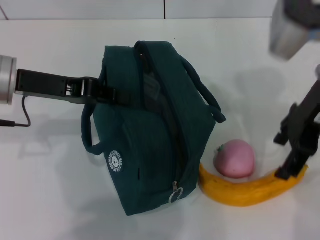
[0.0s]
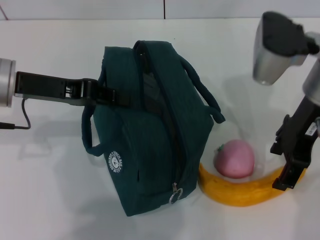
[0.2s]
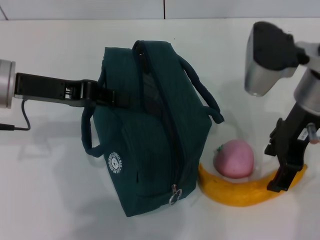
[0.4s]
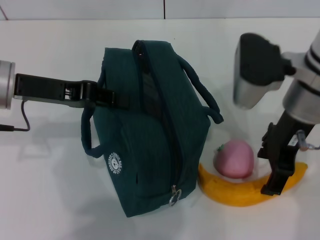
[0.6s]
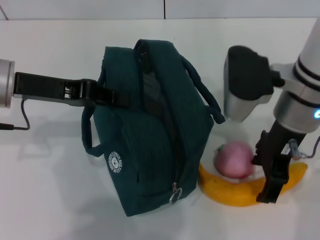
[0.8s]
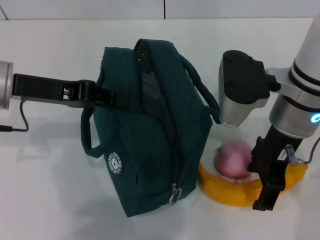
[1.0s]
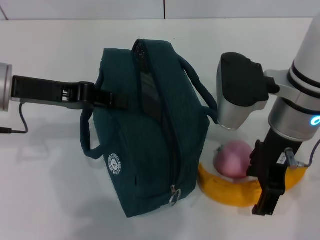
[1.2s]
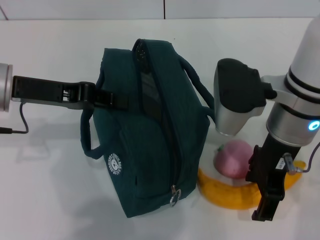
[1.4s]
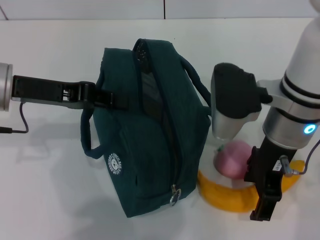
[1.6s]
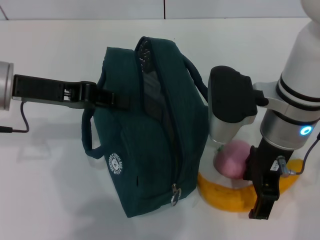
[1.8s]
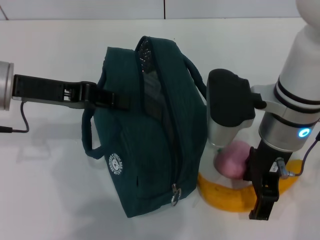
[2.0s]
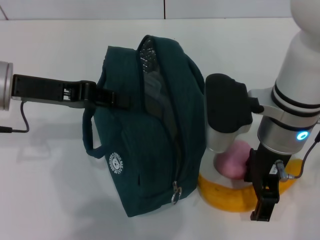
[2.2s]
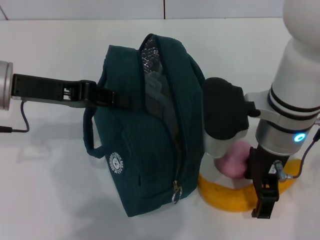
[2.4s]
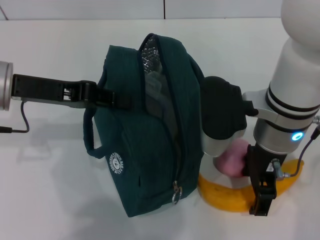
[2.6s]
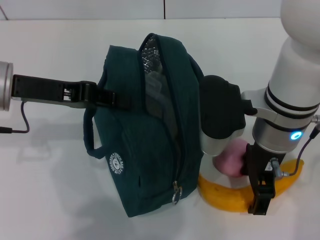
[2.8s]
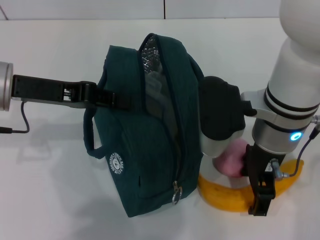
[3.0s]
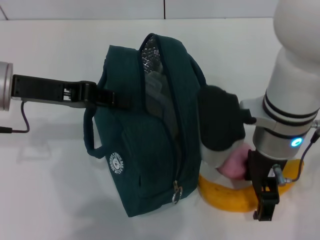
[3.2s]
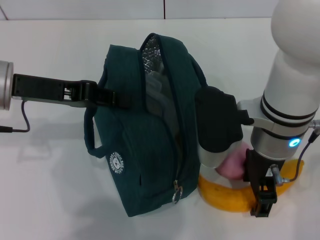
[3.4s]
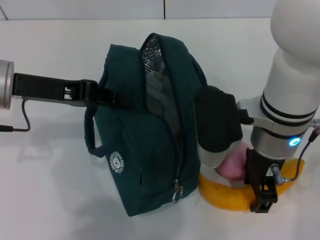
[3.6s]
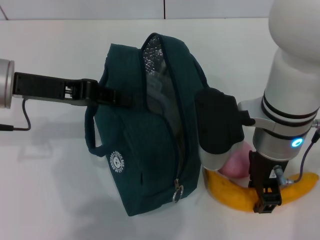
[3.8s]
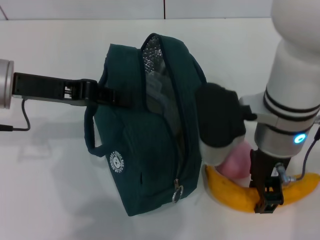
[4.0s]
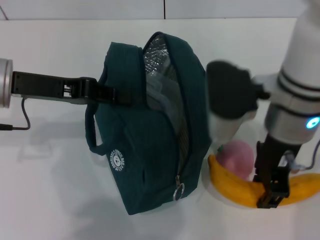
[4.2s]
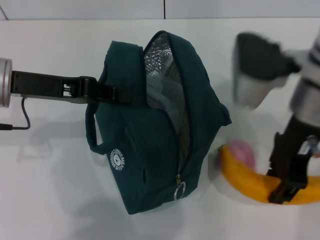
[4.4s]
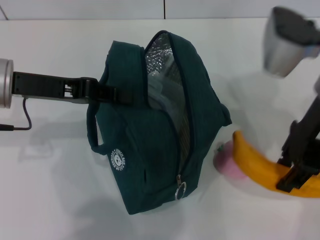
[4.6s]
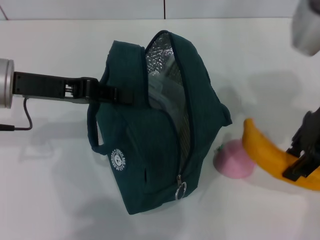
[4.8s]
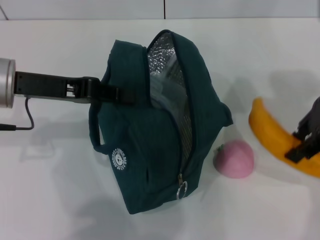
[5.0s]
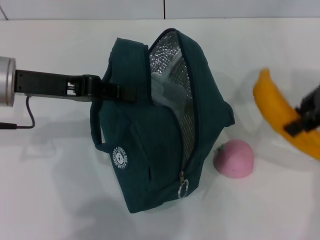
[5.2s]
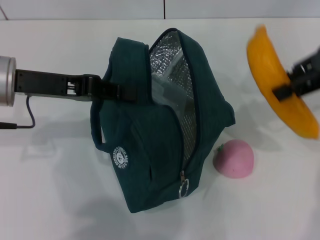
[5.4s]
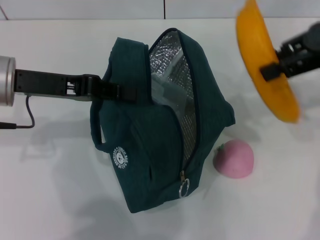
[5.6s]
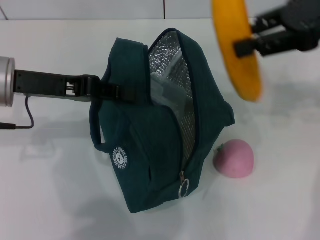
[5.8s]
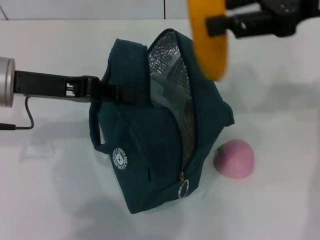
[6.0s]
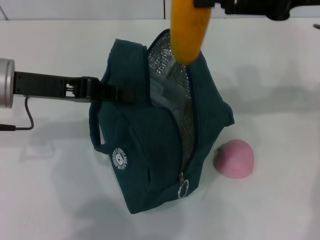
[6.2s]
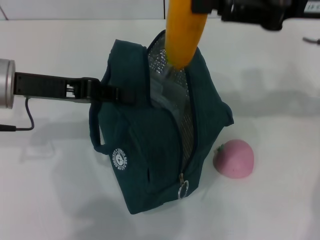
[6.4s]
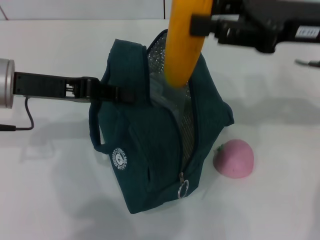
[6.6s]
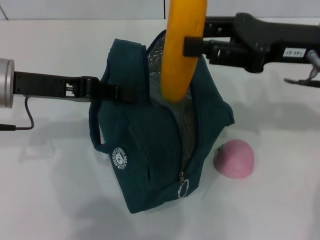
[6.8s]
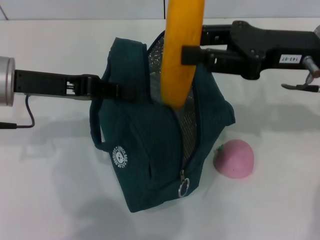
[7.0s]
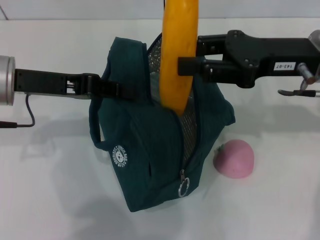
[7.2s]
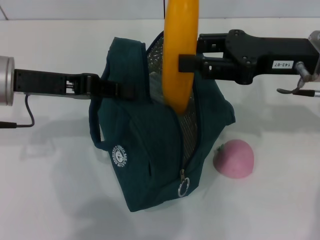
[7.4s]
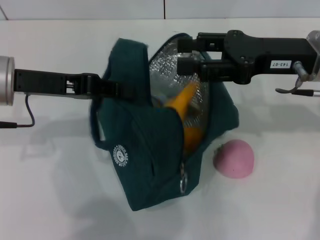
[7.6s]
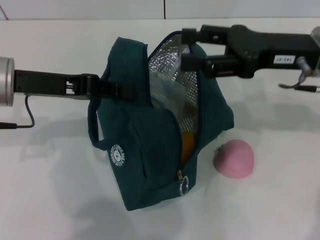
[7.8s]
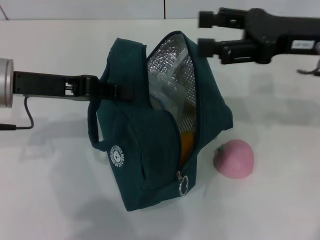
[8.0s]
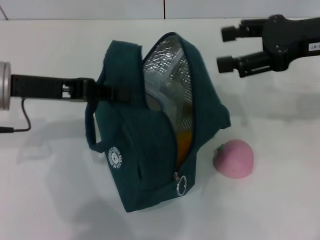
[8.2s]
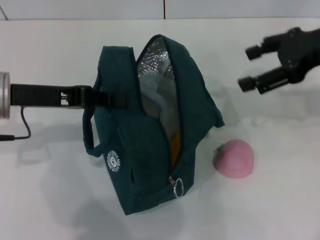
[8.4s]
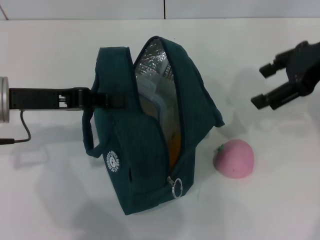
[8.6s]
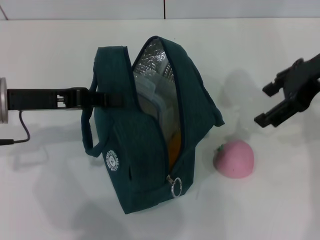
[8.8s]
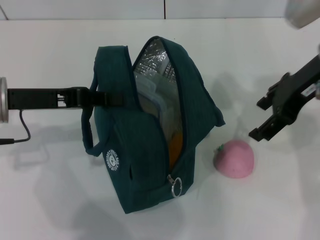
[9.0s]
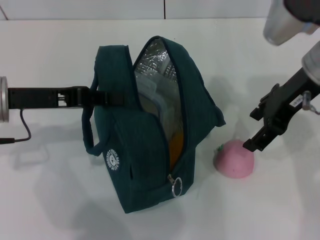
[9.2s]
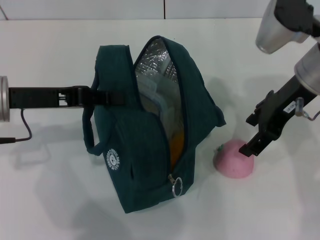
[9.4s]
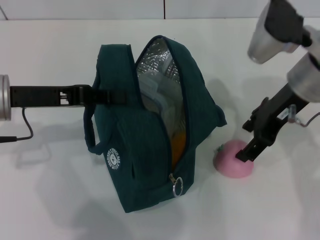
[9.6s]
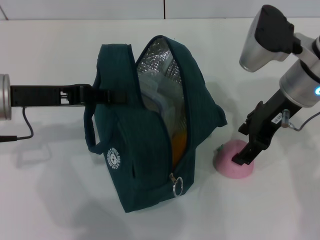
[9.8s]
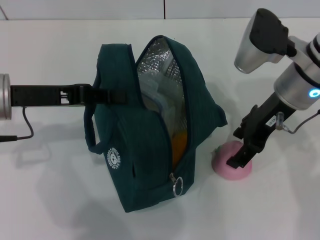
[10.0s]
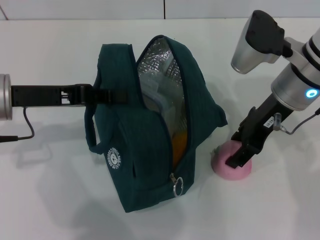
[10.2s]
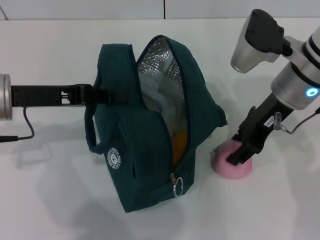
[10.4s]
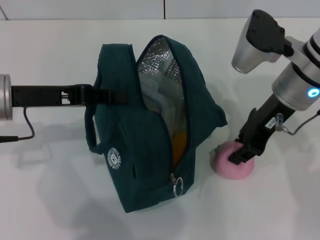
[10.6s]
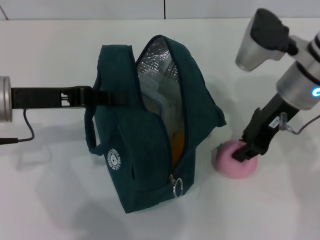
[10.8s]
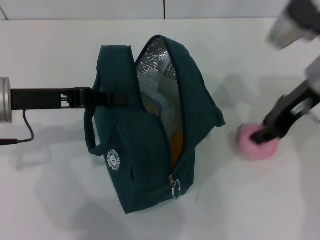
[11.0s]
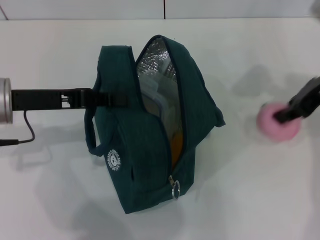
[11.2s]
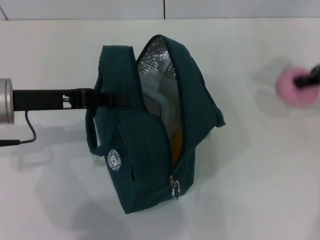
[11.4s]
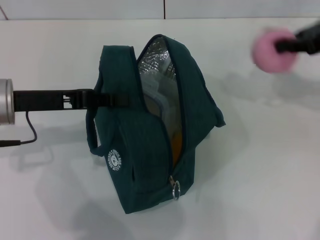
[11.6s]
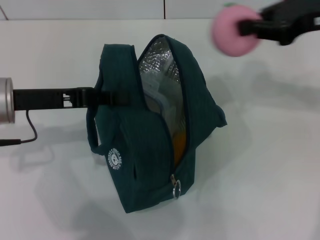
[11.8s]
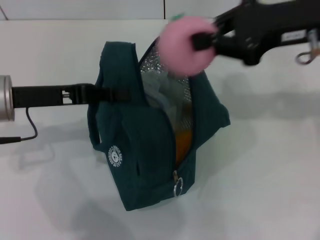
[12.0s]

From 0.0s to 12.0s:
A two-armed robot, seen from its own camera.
Step, from 0.0s to 3.6s: Take the banana with your right hand.
Step, from 3.8s to 7.6s: Put the banana into the lunch bag with your right hand.
Step, from 8.0s to 10.6s: Grab the peach with your right hand.
From 0.0s to 1.6s: The right gripper moves to the left, approximately 5 cm.
From 1.6s to 3.0s: There are only small adjustments of the grippers.
From 3.0s to 4.4s: The right gripper shifts about 5 cm upward, and closes up.
From 4.4s to 6.0s: The right gripper heads to the right and upward, covering roughly 10 cm.
From 6.0s to 7.6s: The right gripper is displaced downward by approximately 10 cm.
From 7.6s to 9.0s: The right gripper opens.
From 9.0s to 10.4s: The right gripper moves downward, roughly 5 cm.
From 10.4s to 12.0s: The right gripper shifts roughly 10 cm upward, moves some 15 cm to the right and comes back, and closes.

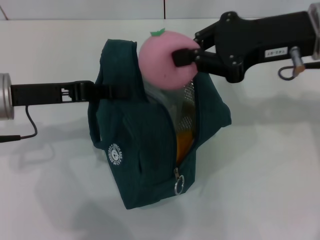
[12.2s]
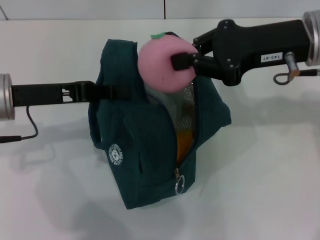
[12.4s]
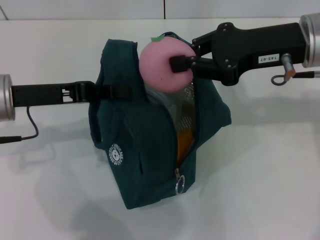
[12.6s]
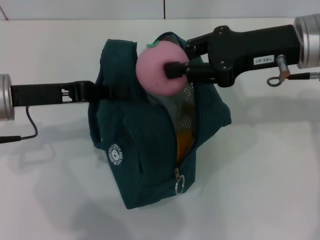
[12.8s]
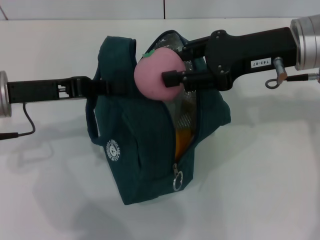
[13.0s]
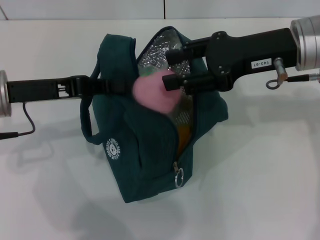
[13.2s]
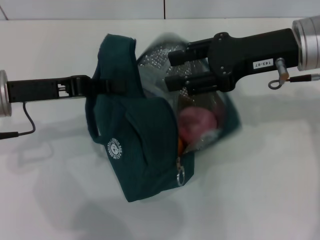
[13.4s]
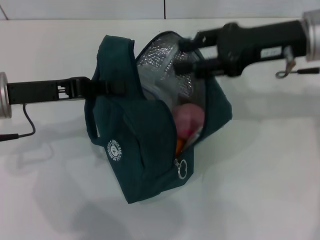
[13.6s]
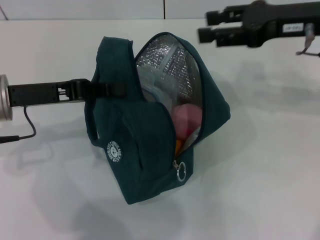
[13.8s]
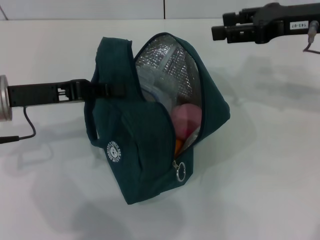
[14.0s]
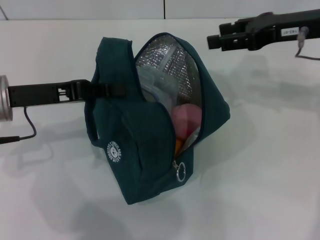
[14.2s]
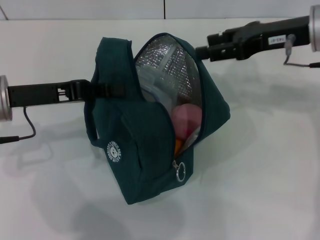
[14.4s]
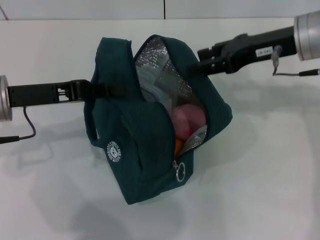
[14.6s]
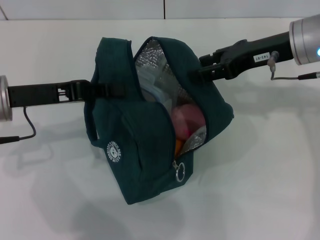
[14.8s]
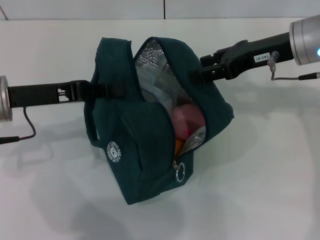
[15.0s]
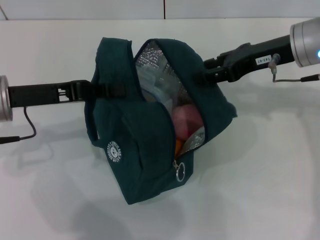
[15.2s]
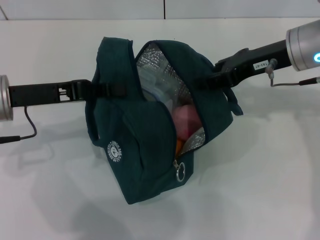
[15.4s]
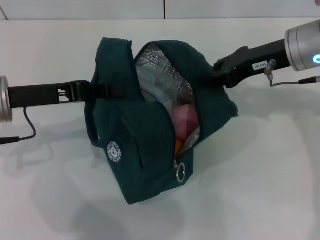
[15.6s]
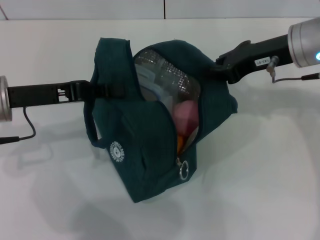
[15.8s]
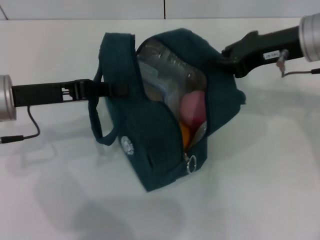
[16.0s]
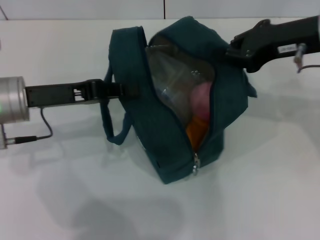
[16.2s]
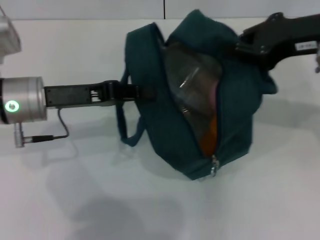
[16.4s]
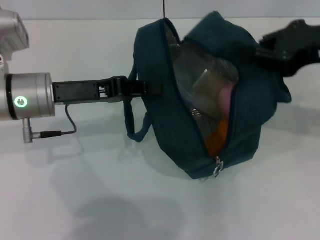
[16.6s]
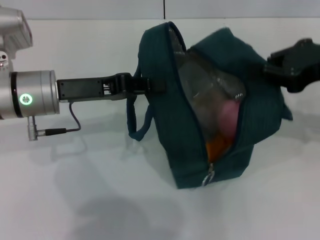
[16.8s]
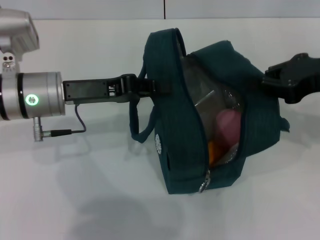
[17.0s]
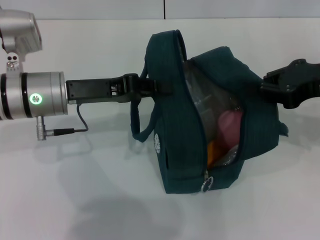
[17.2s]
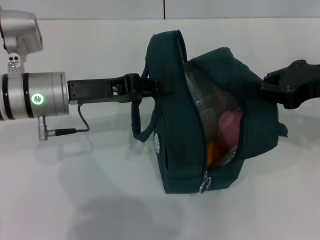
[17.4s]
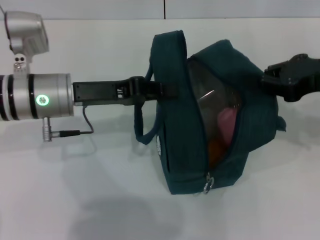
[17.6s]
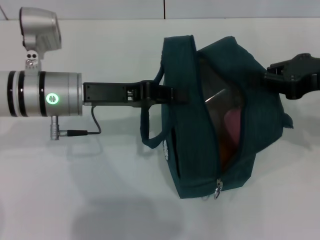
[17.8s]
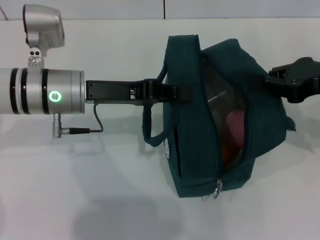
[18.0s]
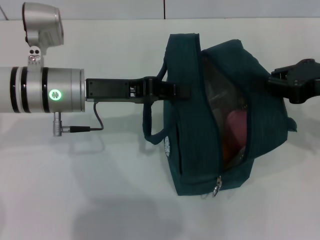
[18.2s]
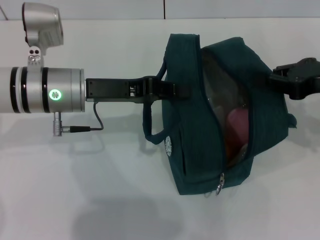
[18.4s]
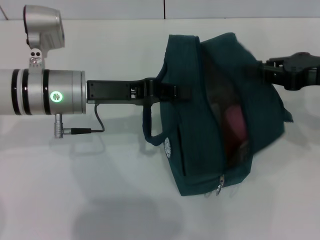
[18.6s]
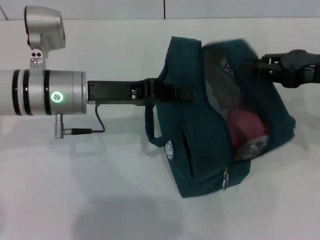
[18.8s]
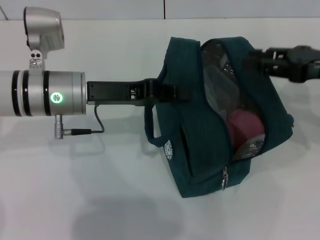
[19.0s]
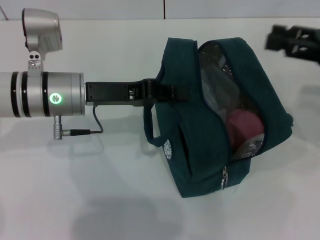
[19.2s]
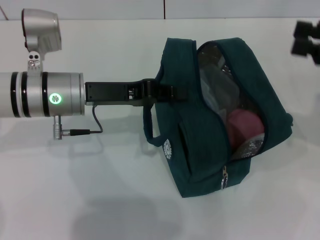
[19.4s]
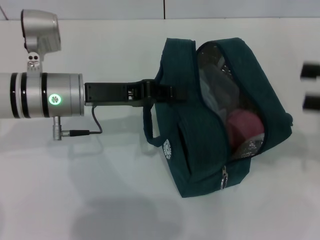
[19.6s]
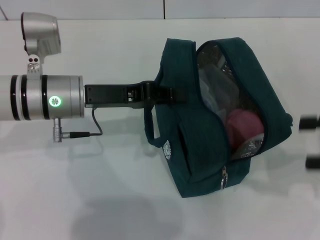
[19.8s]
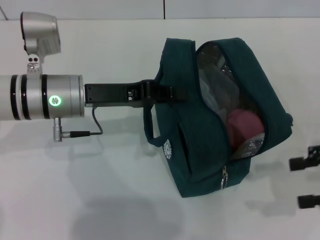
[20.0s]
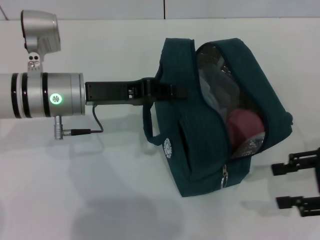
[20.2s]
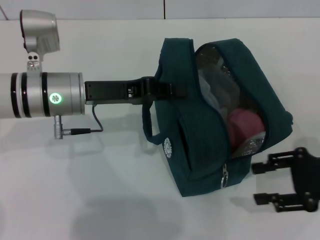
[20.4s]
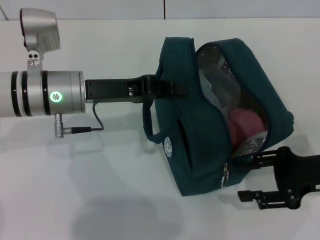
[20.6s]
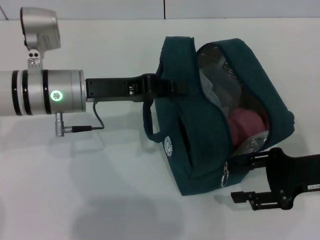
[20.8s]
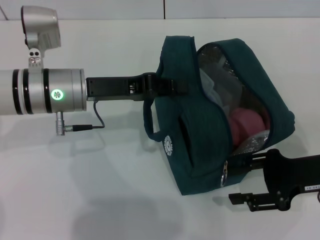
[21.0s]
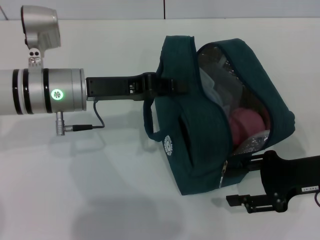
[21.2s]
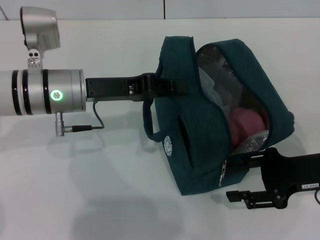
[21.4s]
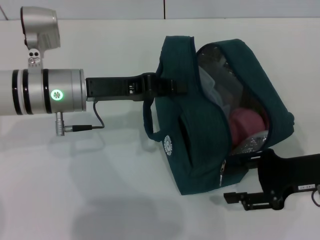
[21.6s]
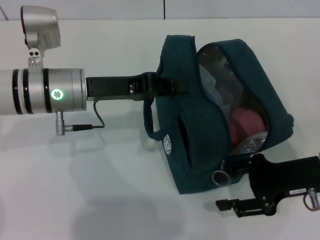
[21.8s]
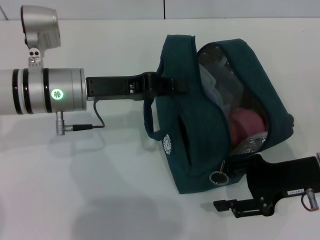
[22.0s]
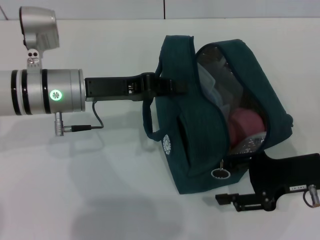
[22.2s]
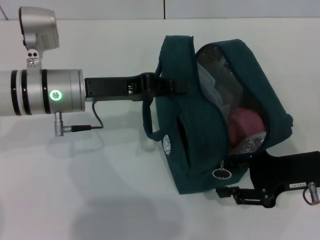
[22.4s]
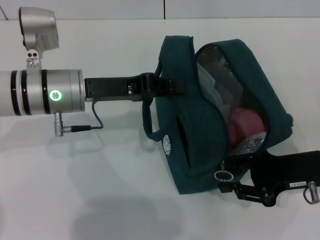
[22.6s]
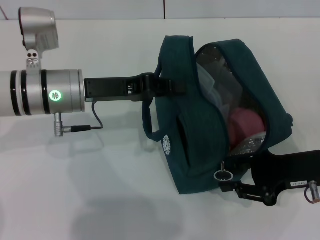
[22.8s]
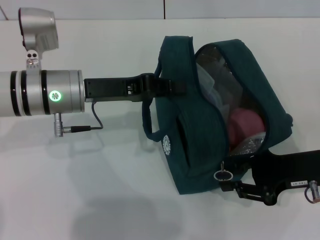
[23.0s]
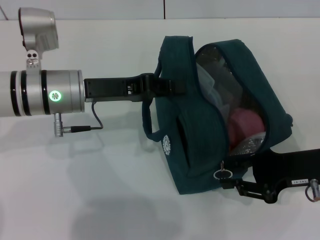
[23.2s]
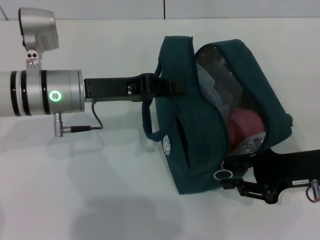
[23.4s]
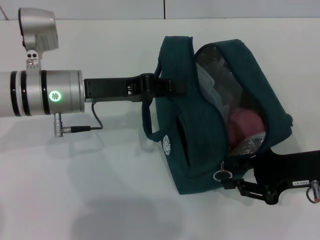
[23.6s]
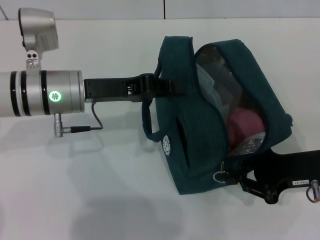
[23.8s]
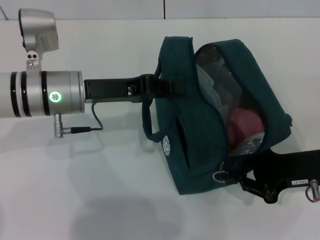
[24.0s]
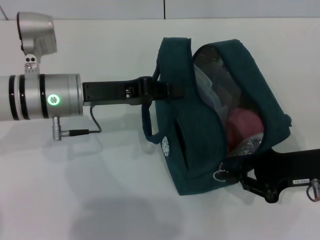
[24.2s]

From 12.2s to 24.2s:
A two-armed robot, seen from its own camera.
Step, from 12.2s to 13.8s: Secure the lunch bag with your left hand.
Step, from 14.0s to 18.8s: Hold the lunch bag with your right hand.
From 12.2s to 13.8s: The right gripper moves approximately 5 cm, and opens up.
From 15.2s to 16.6s: The right gripper goes roughly 10 cm backward, upward and to the right, and closes up, while the left gripper changes place by roughly 5 cm.
From 16.6s to 18.2s: The right gripper ends up approximately 5 cm from where it was.
From 18.2s to 19.8s: The right gripper moves to the right and backward, approximately 10 cm, and opens its fingers.
From 19.8s to 21.2s: The right gripper shifts some 15 cm downward and to the left.
From 21.2s to 22.6s: The grippers move only a little.
From 22.6s to 24.2s: The right gripper closes.
